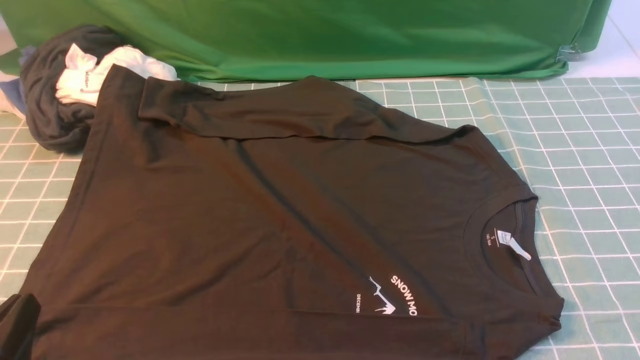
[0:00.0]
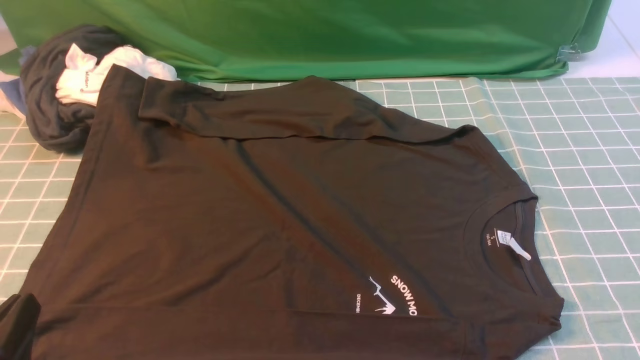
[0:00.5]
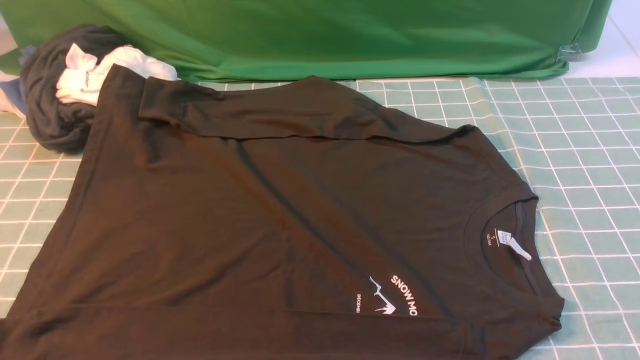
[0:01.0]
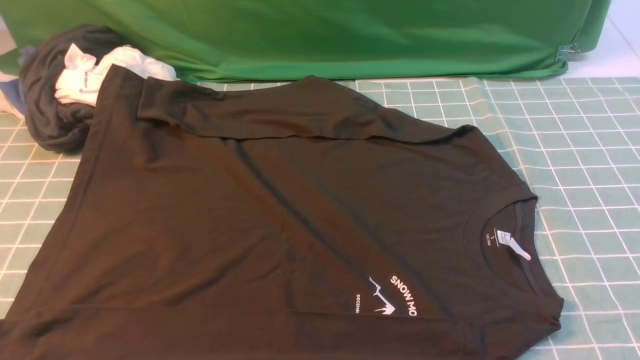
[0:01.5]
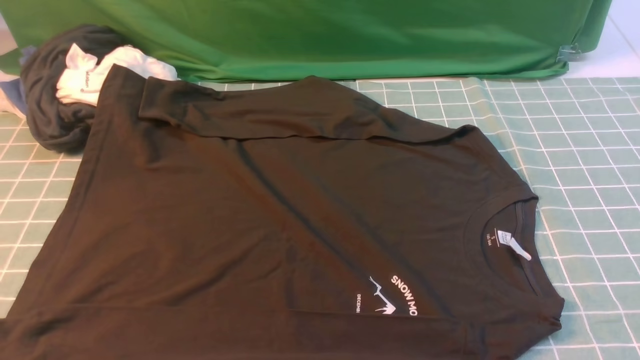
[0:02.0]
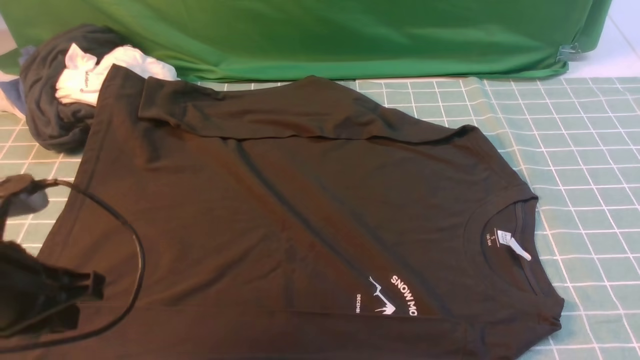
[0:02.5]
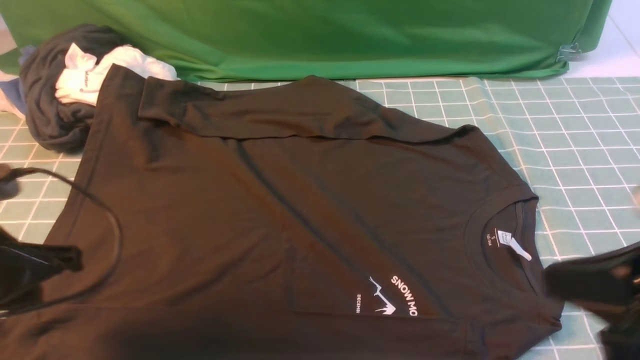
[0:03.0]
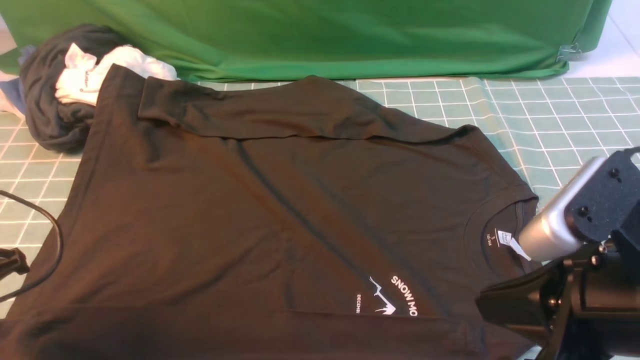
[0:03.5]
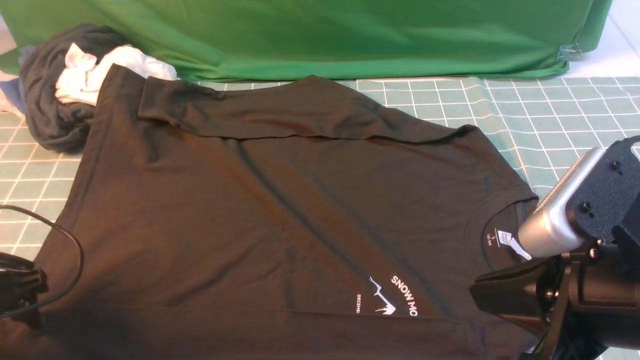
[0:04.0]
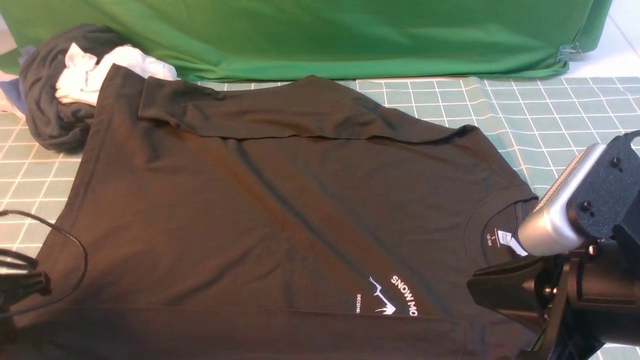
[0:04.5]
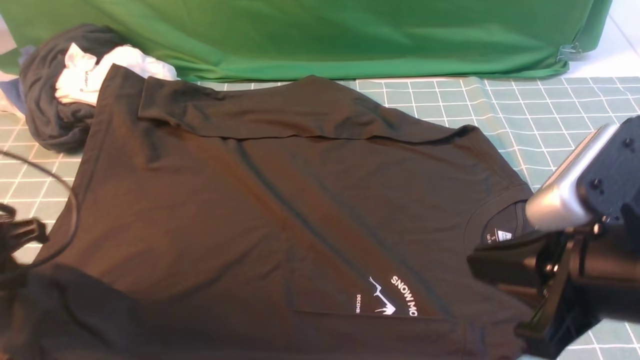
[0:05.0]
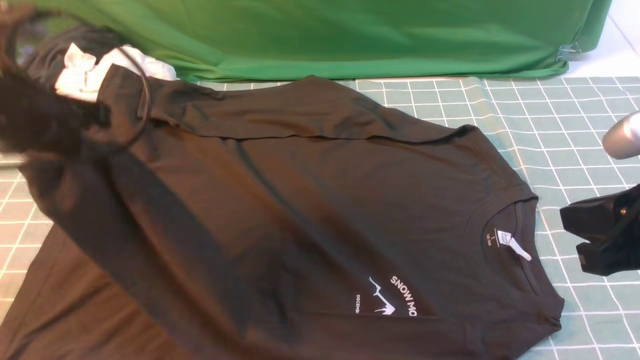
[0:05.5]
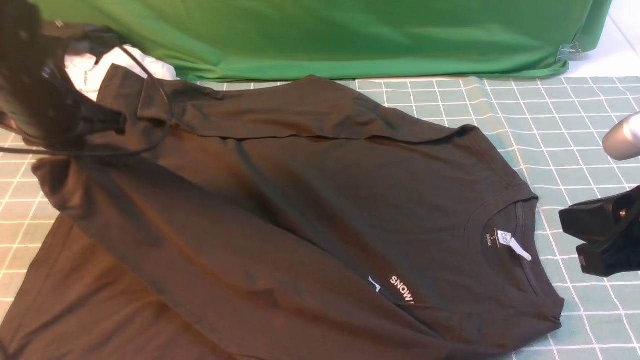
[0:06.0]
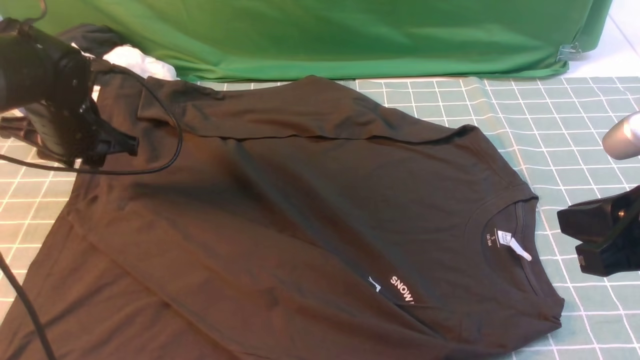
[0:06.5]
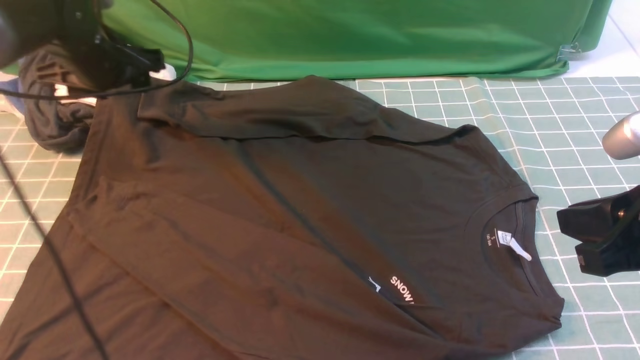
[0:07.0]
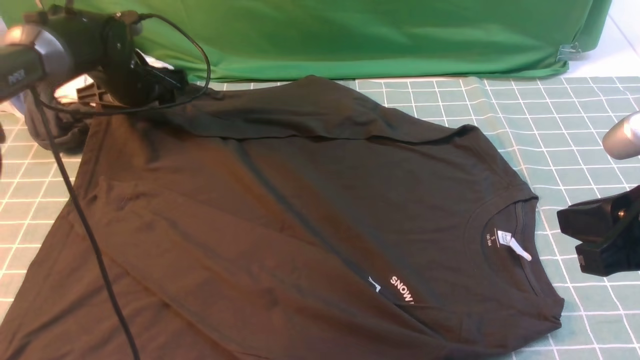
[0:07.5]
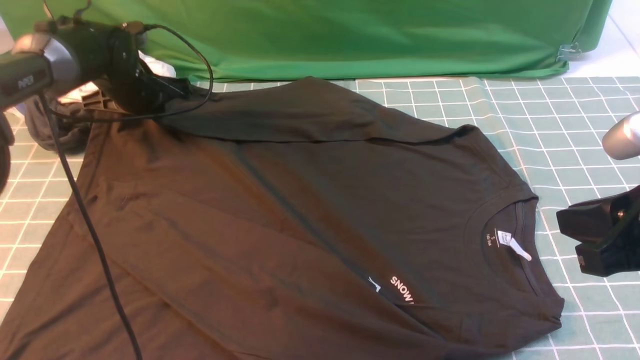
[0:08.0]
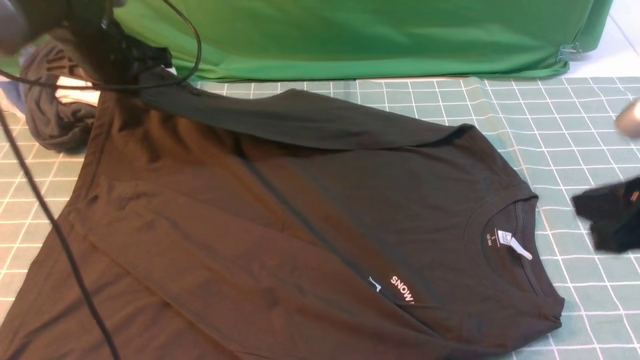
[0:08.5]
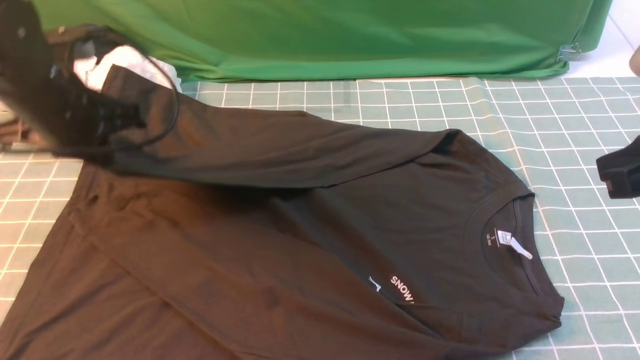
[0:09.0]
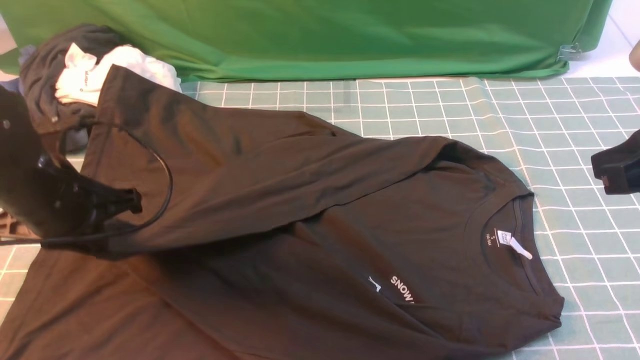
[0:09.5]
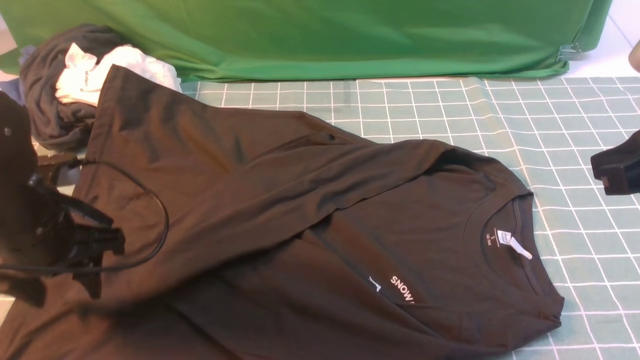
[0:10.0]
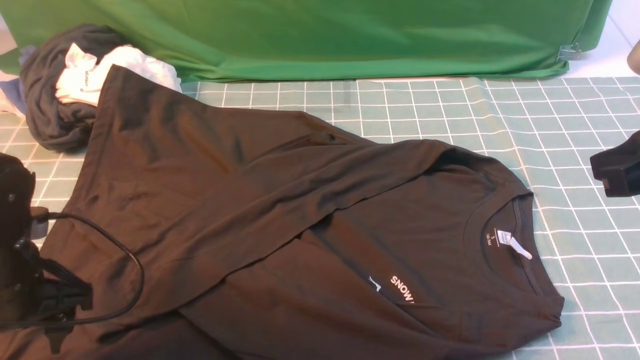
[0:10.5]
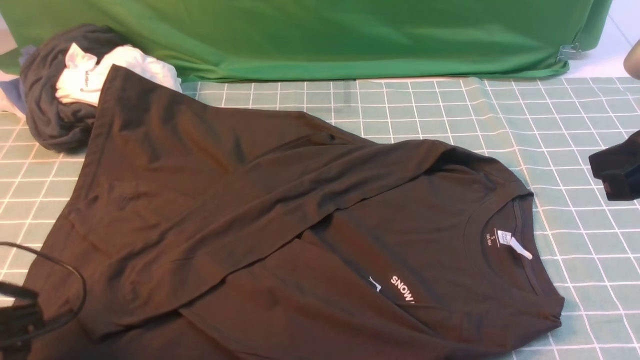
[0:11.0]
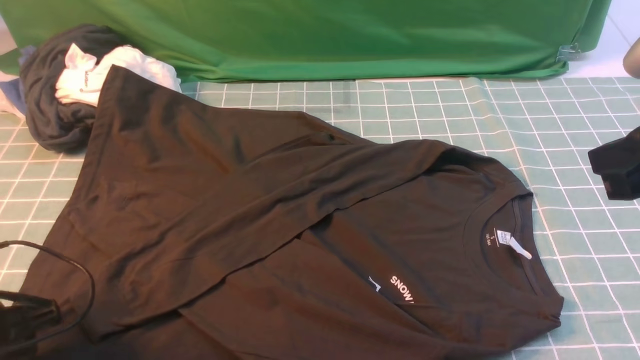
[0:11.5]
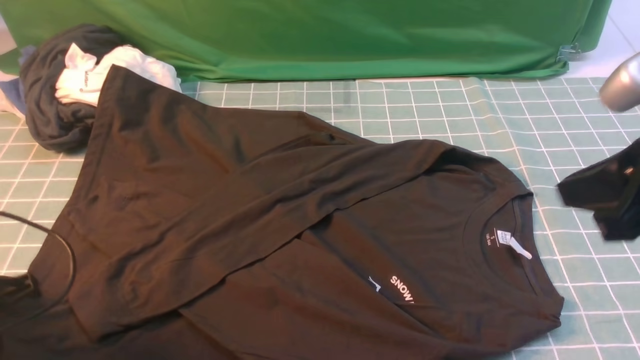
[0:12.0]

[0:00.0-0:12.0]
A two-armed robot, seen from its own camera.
Step, 0:00.0 to 0:04.5: use the left arm to clamp the cuff closest to it.
Step, 0:05.0 to 0:06.5: use the left arm to drag and place the cuff at the centered position on the left edge of the fabric.
Step, 0:07.0 to 0:08.0: use the left arm to clamp the cuff farthest from it.
Step, 0:08.5 to 0:10.5: use the left arm to drag and drop the cuff onto the cuff closest to the left arm.
0:02.0 to 0:04.0: The right gripper heads to the left, upward and forward, covering approximately 15 cm, and closes its fingers. The left gripper travels downward, forward and to the left by about 25 cm, and opens its fingers.
0:04.0 to 0:06.0: The right gripper goes approximately 5 cm to the right; the left gripper goes approximately 20 cm forward, upward and to the right, and closes.
0:06.0 to 0:08.0: The left gripper heads forward and downward, covering approximately 20 cm, and opens, then closes again.
0:08.0 to 0:10.0: The left gripper heads backward, covering some 25 cm, and opens, while the right gripper ends up about 5 cm from where it was.
0:10.0 to 0:12.0: The left gripper moves backward and to the left, some 10 cm, and closes its fingers.

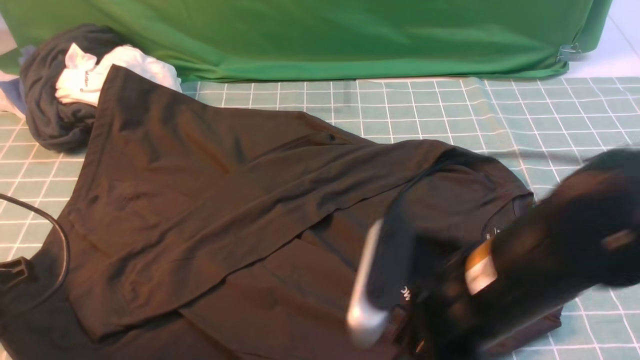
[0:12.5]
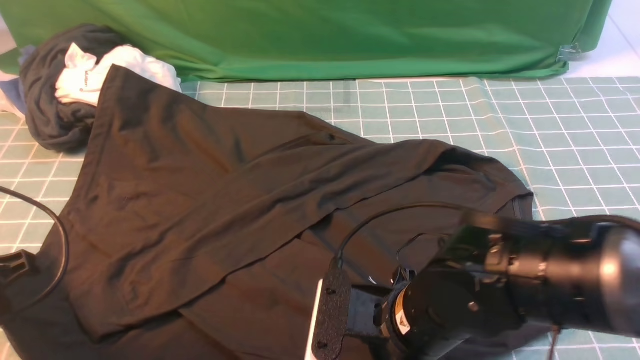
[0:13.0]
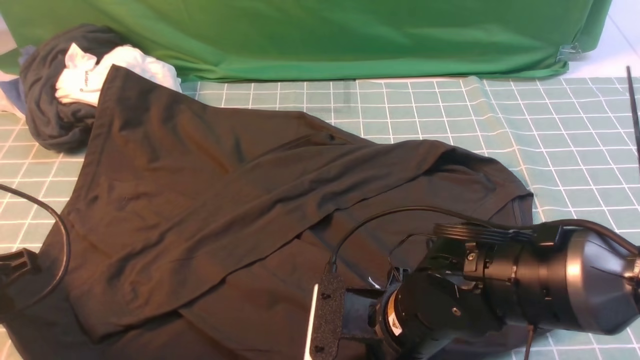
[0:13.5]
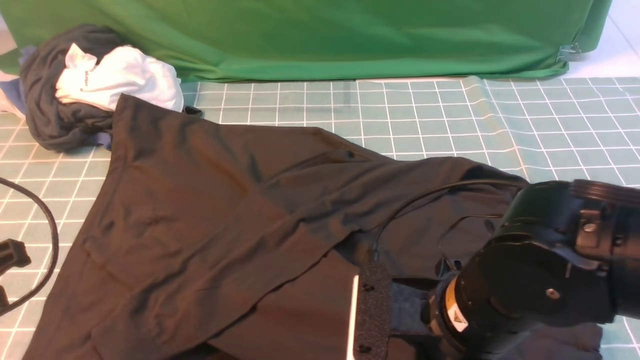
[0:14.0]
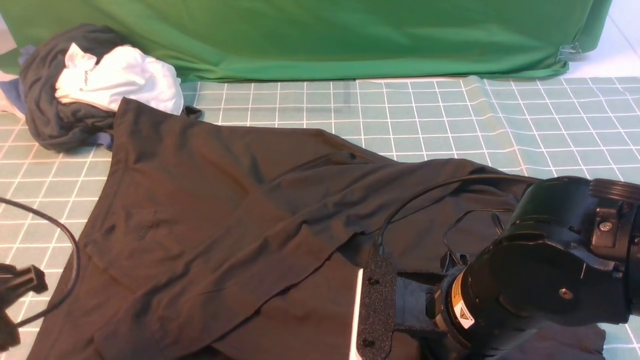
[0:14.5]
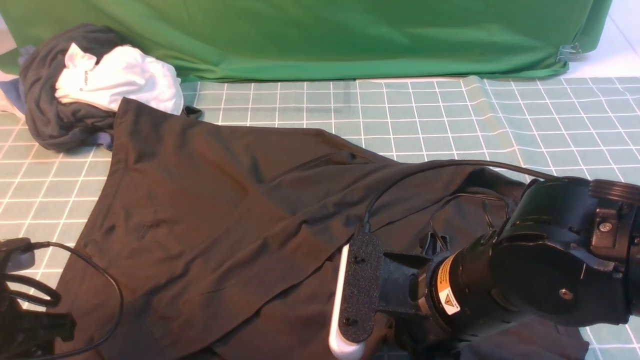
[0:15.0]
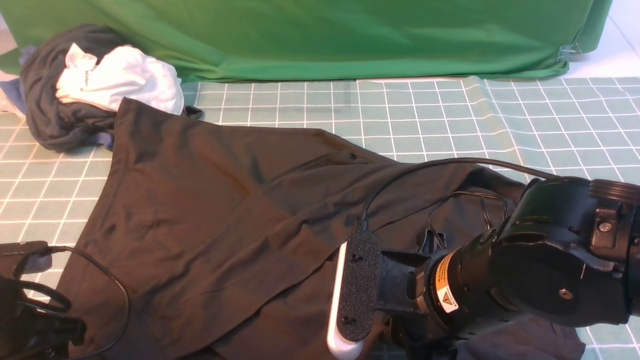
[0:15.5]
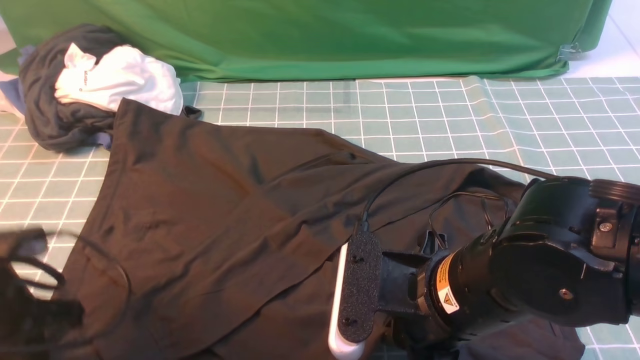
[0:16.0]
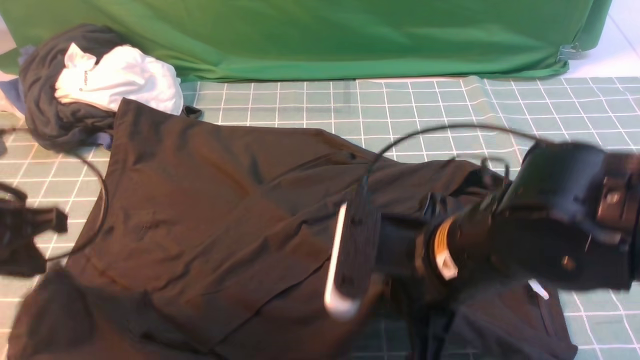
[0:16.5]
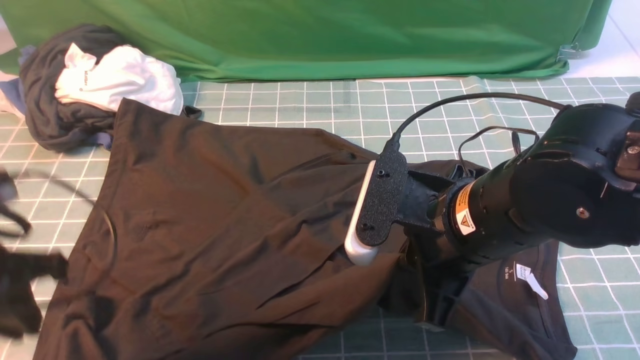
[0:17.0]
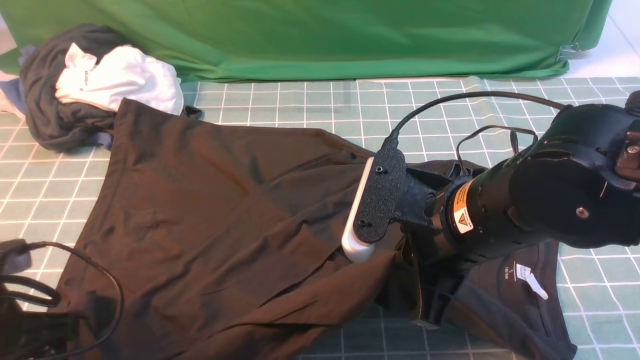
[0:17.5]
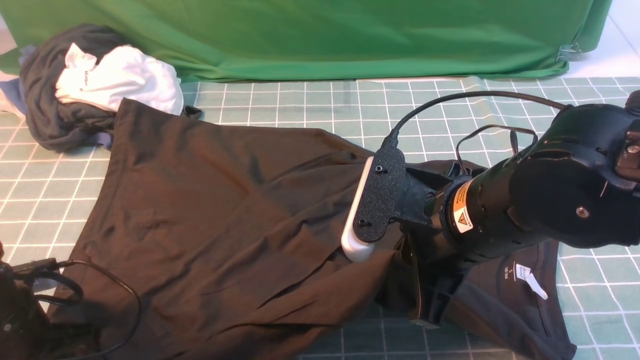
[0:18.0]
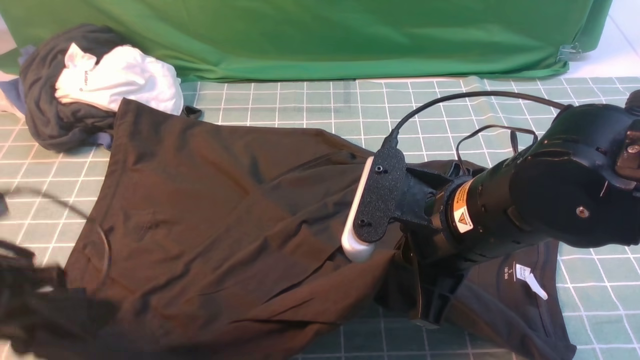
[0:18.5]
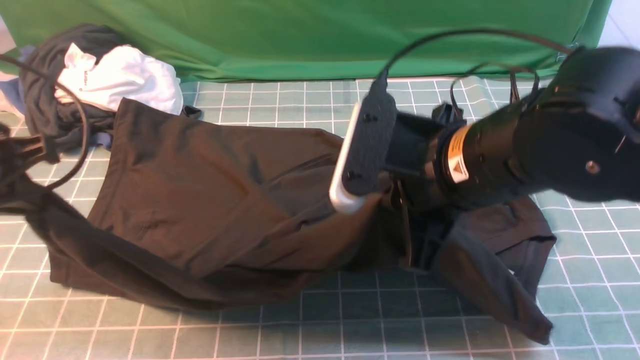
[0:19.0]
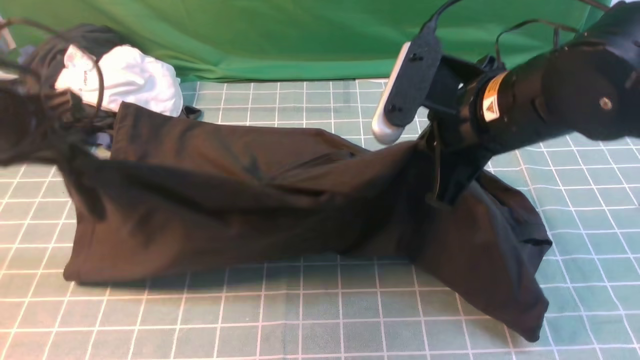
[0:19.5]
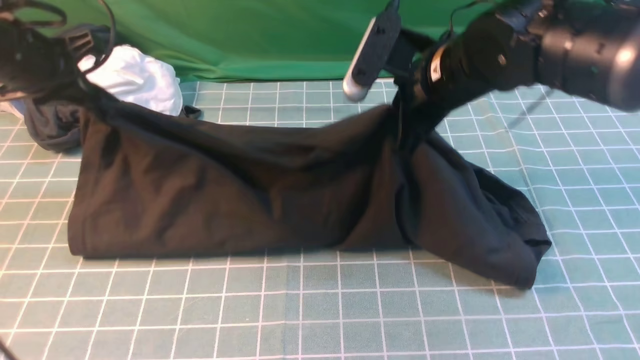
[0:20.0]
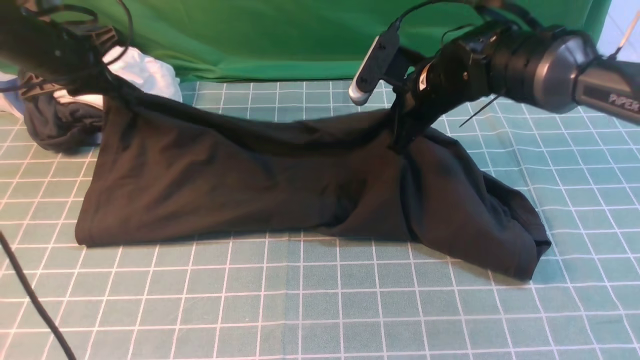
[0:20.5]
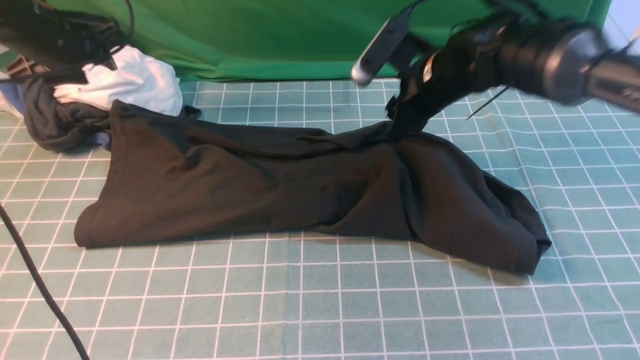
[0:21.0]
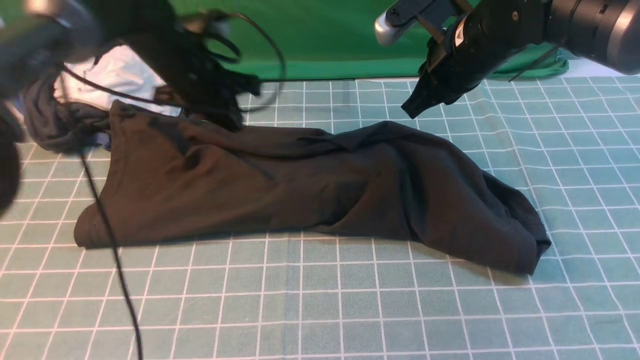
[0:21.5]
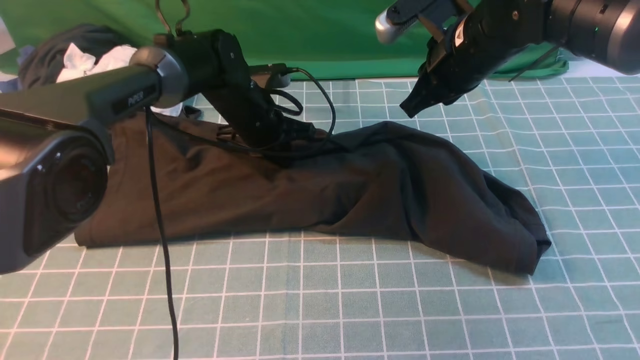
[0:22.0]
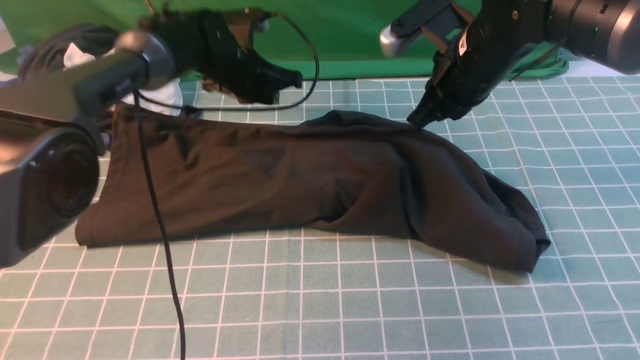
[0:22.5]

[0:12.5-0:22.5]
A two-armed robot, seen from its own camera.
Step, 0:12.5 to 0:18.5: use both arms simultaneously to clamp the lower edge of the clothing fabric.
0:12.5 to 0:14.5: The right gripper opens and closes again.
0:14.5 to 0:16.5: The left gripper goes downward and returns, about 10 cm each way, and opens and closes again.
0:16.5 to 0:18.5: The left gripper opens, then closes once more.
0:18.5 to 0:20.5: The grippers both shift forward by roughly 25 cm.
0:20.5 to 0:22.5: The right gripper moves upward, about 5 cm, and opens and closes again. The left gripper travels to the right by some 20 cm, and opens, then closes again.
